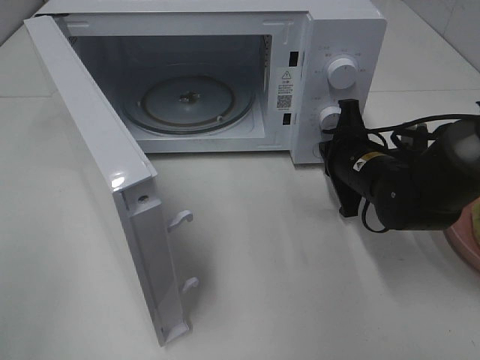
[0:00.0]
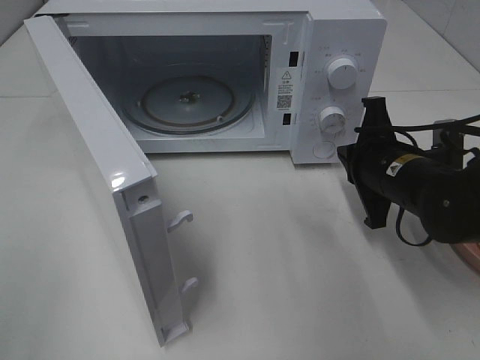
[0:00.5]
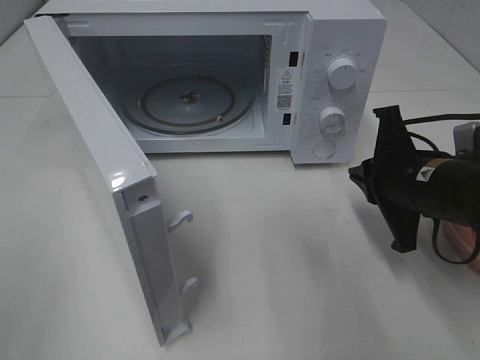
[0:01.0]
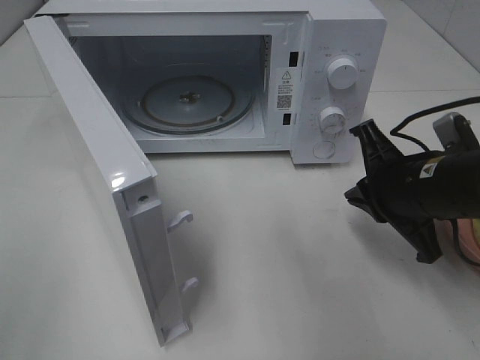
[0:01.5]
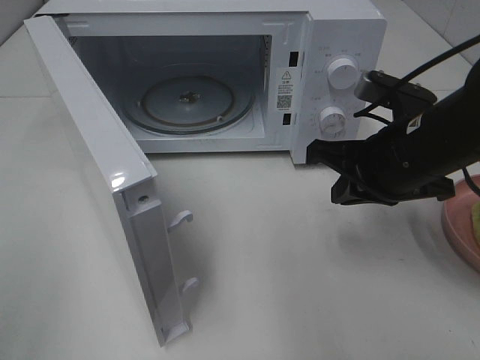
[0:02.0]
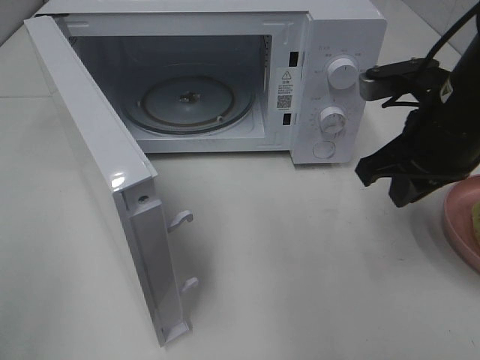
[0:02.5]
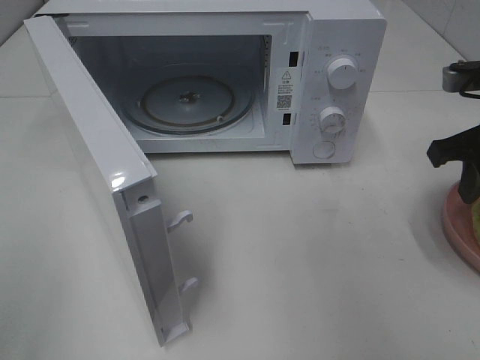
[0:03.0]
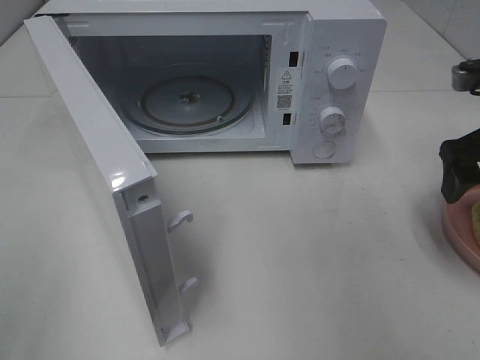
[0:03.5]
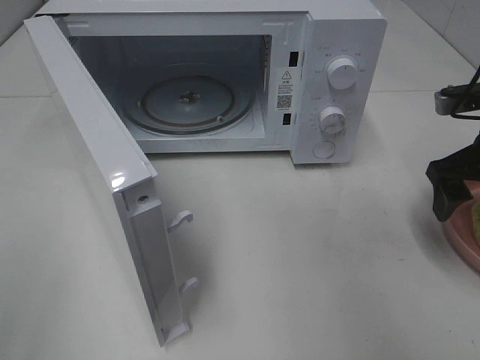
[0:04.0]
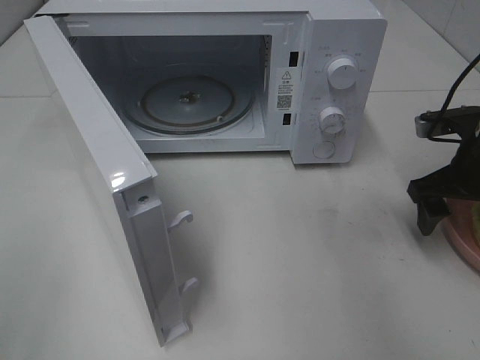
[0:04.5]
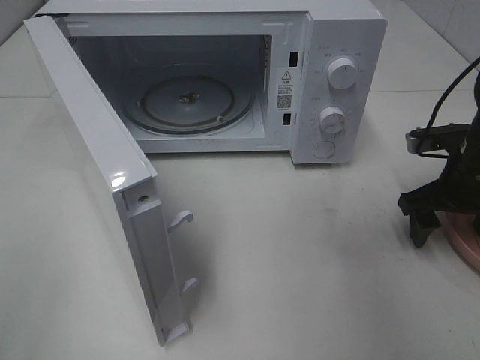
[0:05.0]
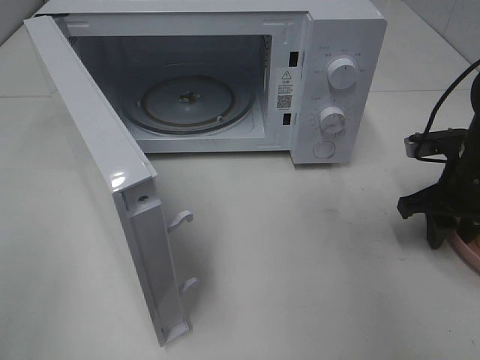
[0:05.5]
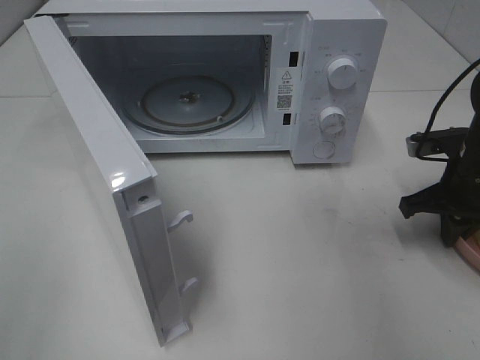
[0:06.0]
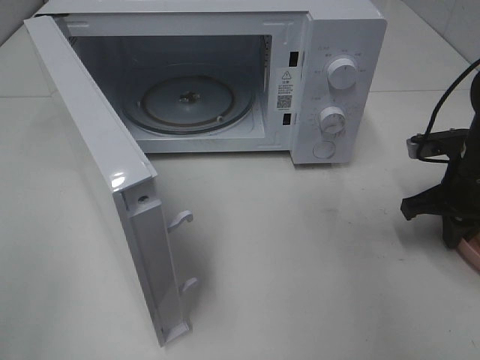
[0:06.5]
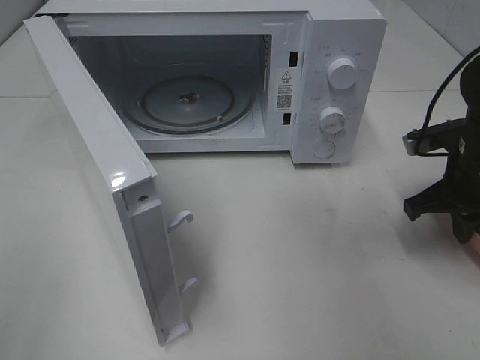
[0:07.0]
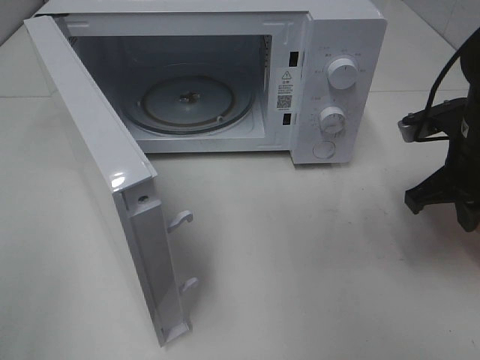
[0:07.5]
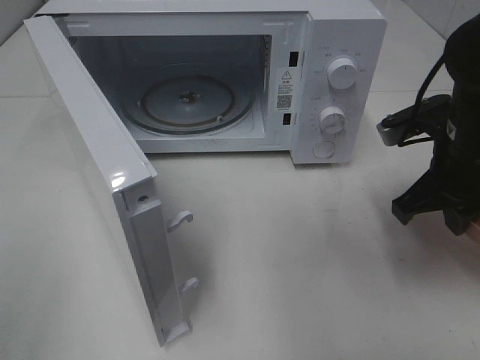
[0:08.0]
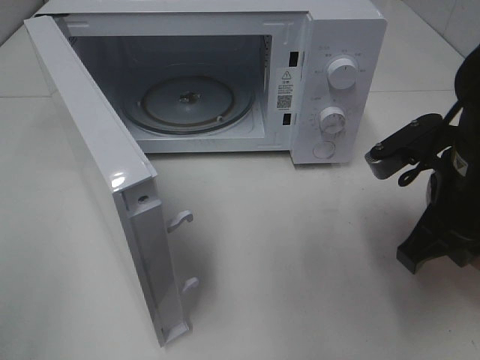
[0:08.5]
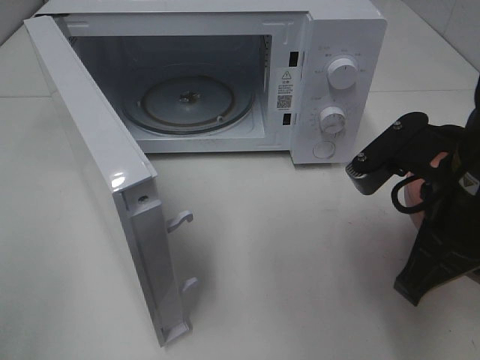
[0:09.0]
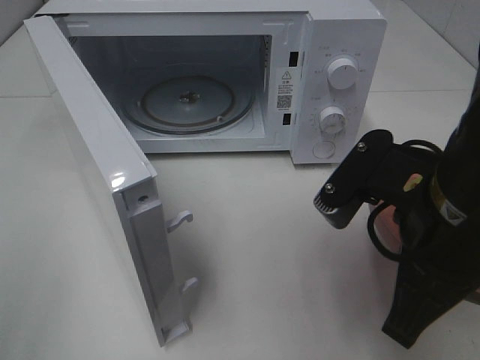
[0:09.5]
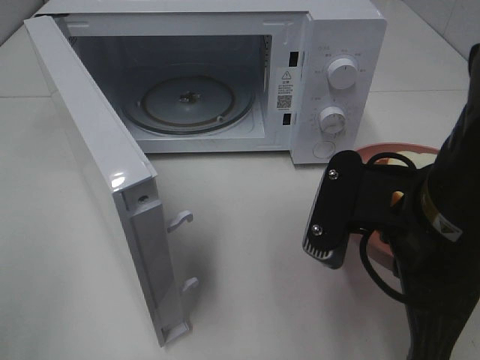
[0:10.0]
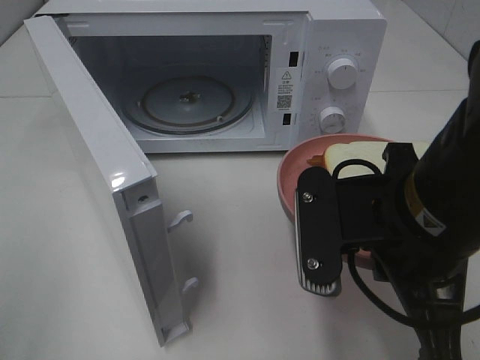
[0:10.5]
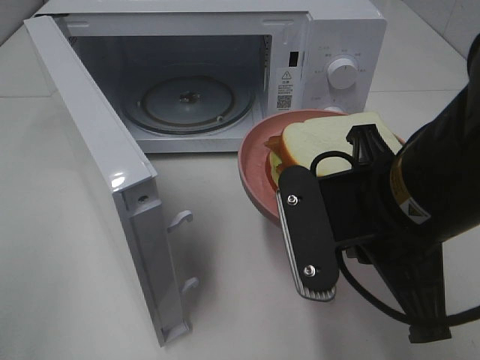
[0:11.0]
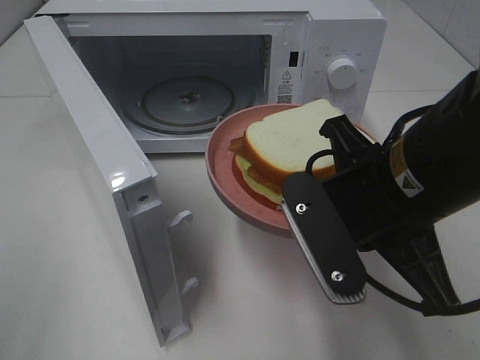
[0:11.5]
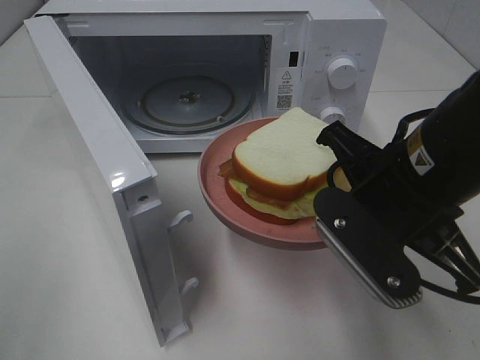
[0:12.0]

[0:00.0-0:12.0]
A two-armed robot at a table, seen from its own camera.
Task of the whole recording: Heat Sandwich.
Step, 1.0 to 6.5 s: Right hand: grab the plate with the sandwich.
0.0 to 2.0 s: The right gripper goes approximately 10 cm upward and backward.
2.0 to 4.0 s: The right gripper travels to the right by some 10 cm, and opens its fingers.
4.0 to 6.0 s: The right gripper goes about 5 cm downward, and closes.
6.0 to 8.0 s: The right gripper is displaced upward and to the left by about 10 cm.
8.0 to 10.0 s: The right gripper goes some 15 cm backward and to the left.

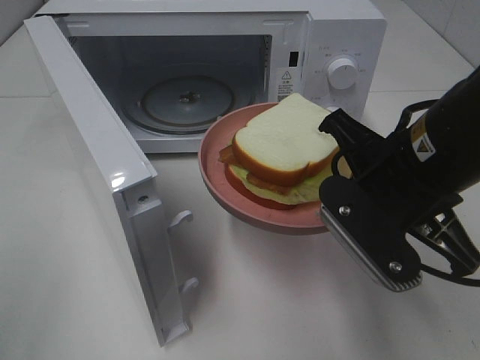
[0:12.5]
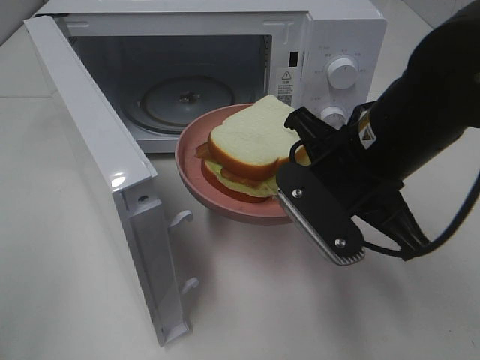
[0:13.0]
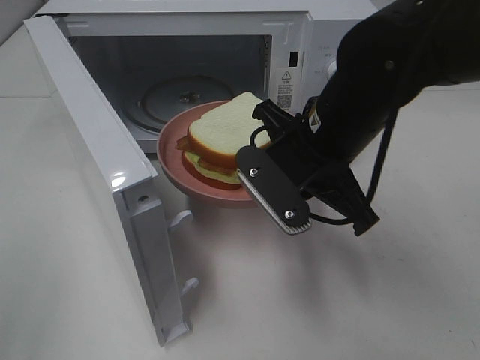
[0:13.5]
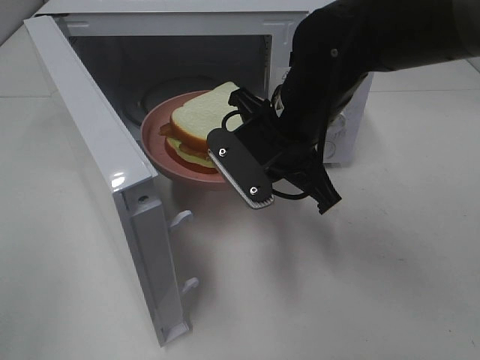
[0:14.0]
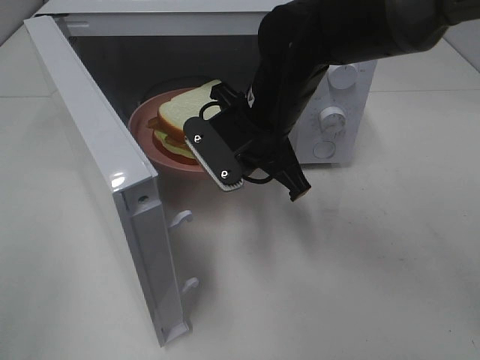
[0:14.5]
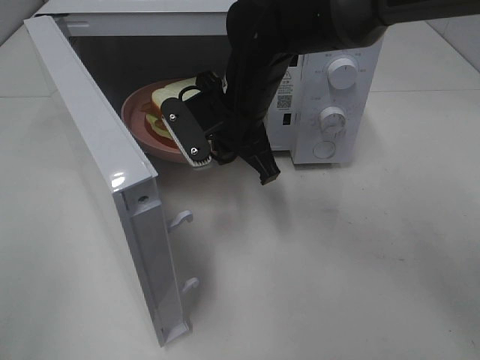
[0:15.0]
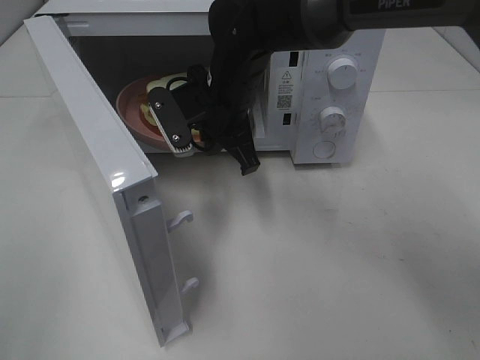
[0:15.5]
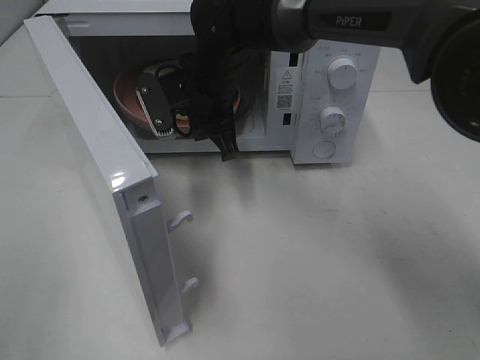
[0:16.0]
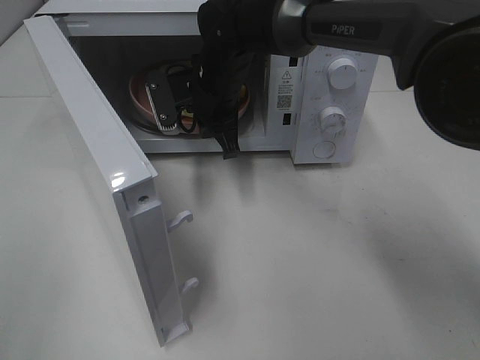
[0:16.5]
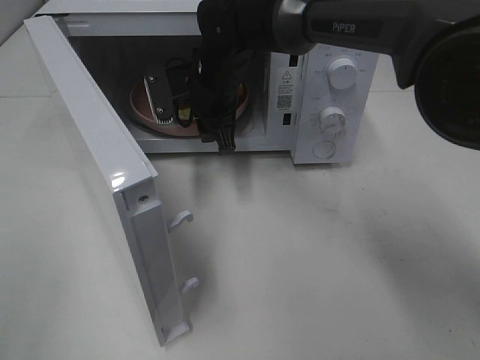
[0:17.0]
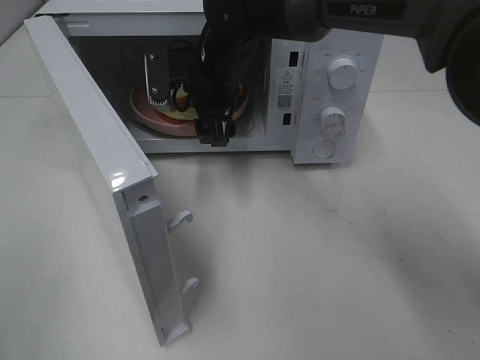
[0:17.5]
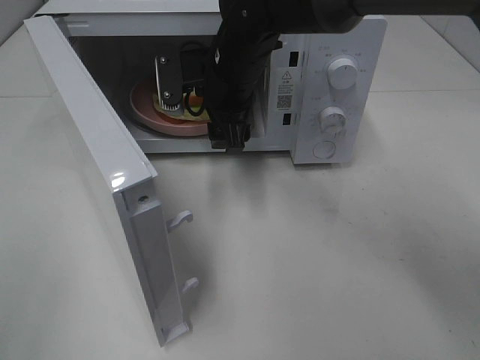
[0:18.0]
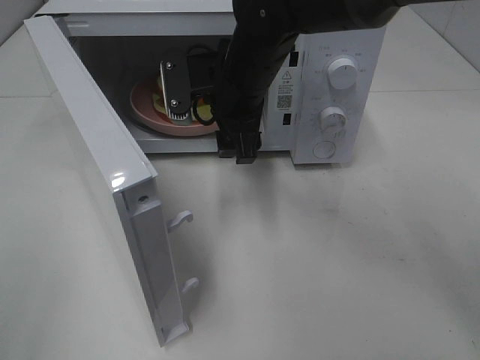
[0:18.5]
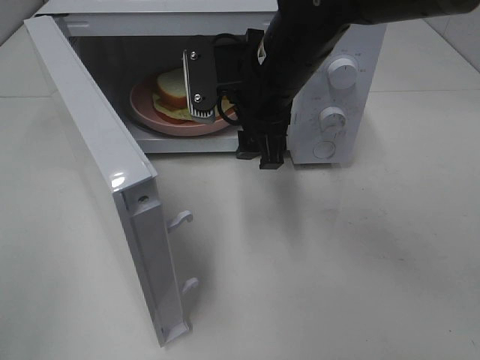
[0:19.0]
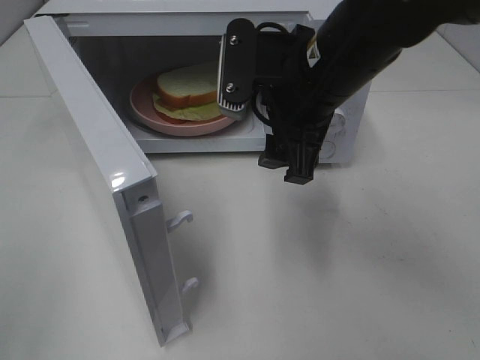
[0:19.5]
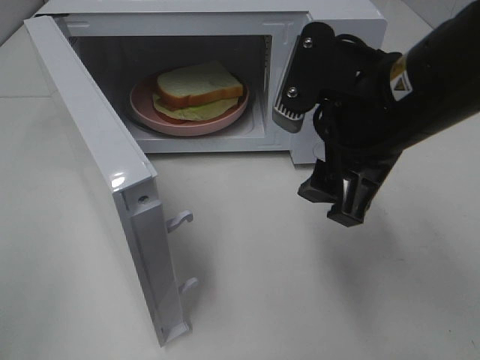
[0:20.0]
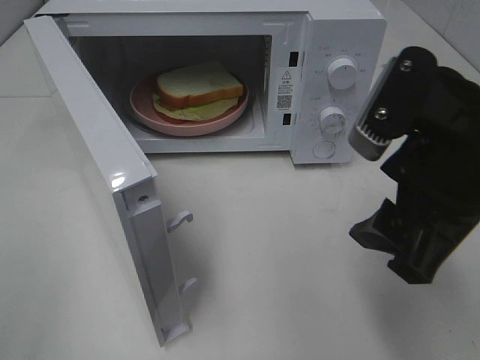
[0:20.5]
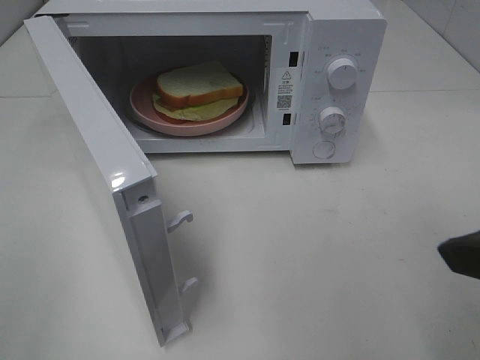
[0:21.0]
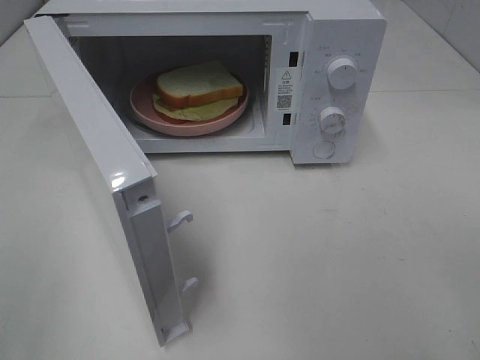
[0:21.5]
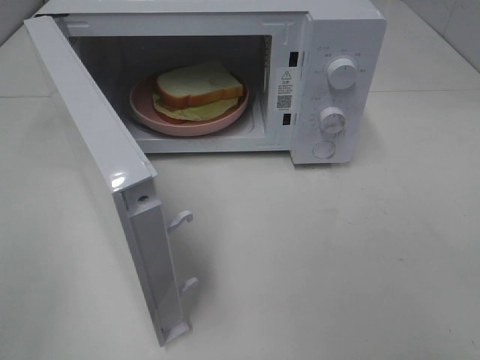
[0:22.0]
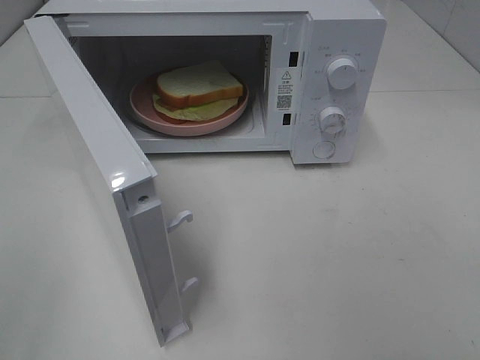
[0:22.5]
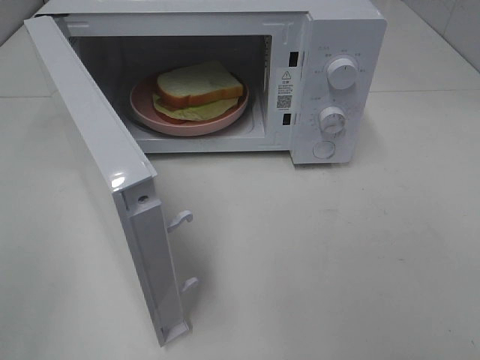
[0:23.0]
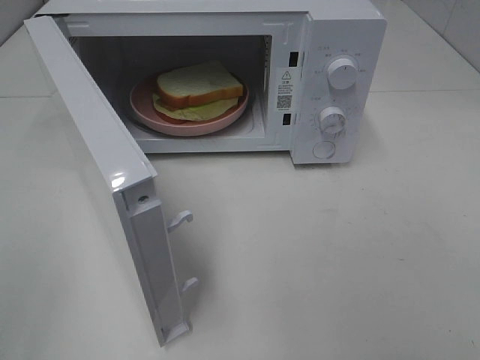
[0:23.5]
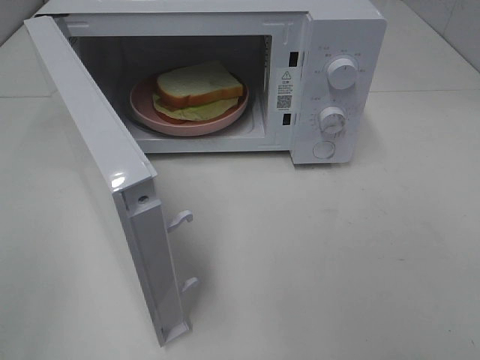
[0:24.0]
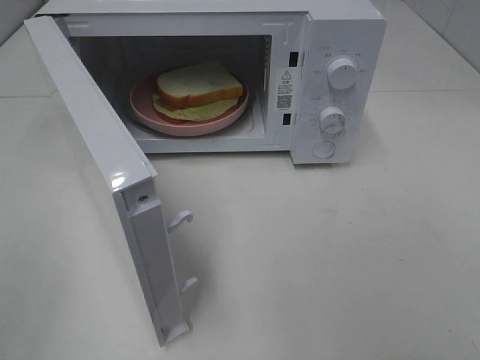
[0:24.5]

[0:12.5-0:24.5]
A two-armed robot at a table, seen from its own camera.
Task of the whole recording: Heat Sandwich.
Step, 12.5 to 17.0 s: Right hand: place the plate in the microwave.
12.5 to 14.5 s: The right gripper shifts about 15 cm forward and to the left.
14.5 to 16.5 s: The right gripper shifts approximately 10 cm forward and to the left.
16.5 to 18.5 s: The right gripper is displaced backward by about 5 cm, and opens.
18.5 to 20.5 s: The right gripper shifts roughly 25 cm backward and to the right.
20.5 to 22.5 s: The right gripper travels backward and to the right by some 20 cm.

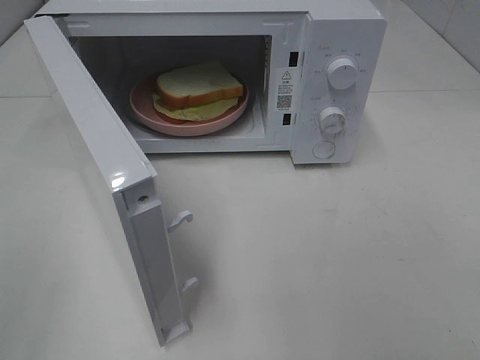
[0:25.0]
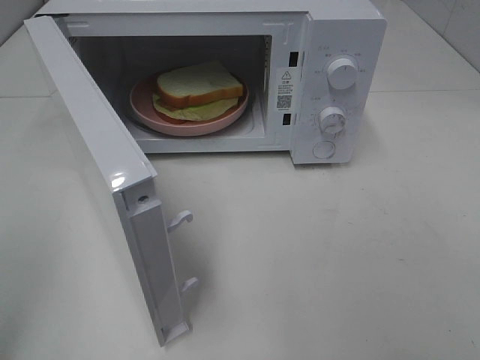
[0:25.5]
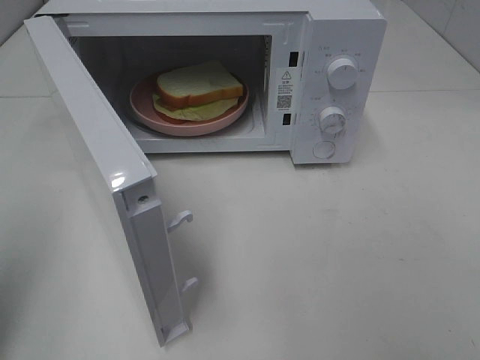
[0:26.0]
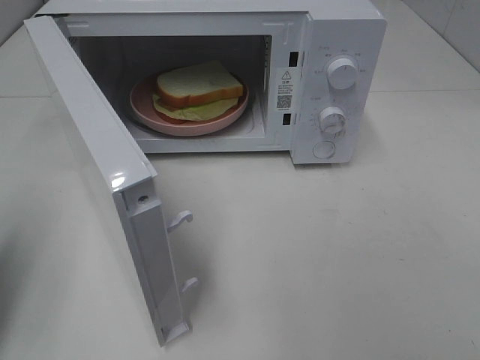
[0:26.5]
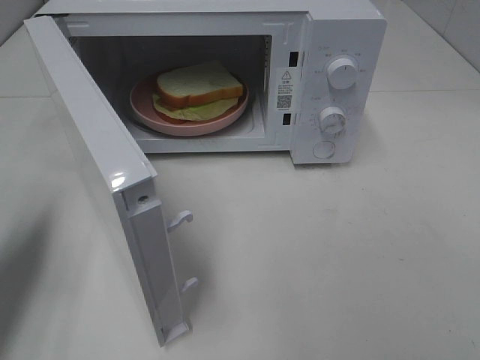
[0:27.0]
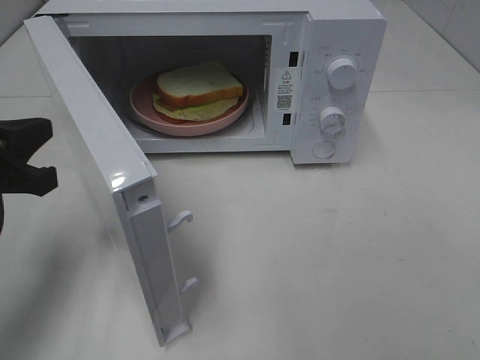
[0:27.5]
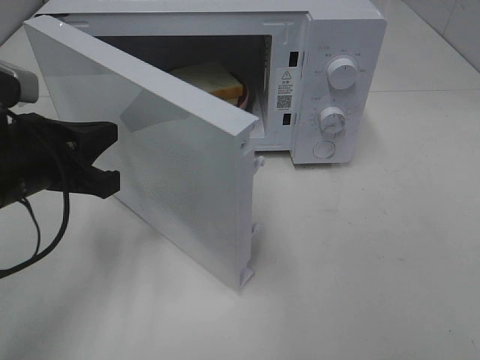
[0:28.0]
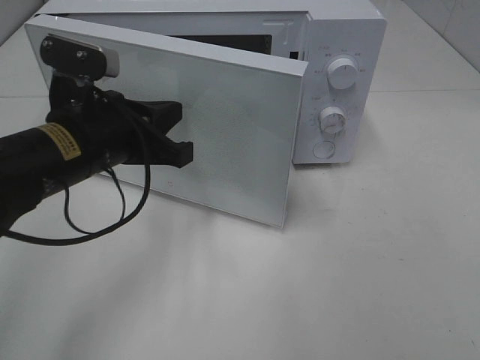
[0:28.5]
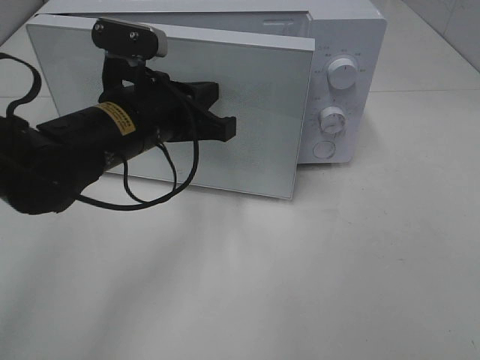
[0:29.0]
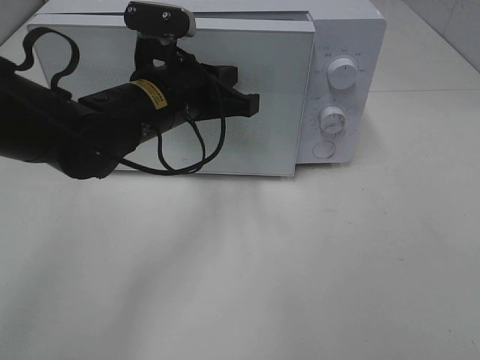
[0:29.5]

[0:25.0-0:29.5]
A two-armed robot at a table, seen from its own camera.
Task of the whole recording: Heat Sandwich.
25.0 to 27.0 s: The left gripper is displaced forward by roughly 20 cm, and closes up.
27.0 to 29.5 s: The left gripper goes approximately 25 cm to the right and forward.
